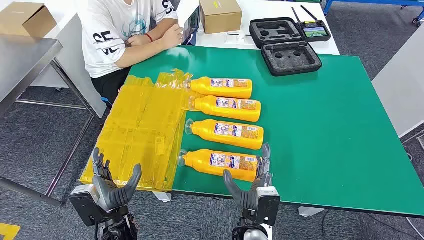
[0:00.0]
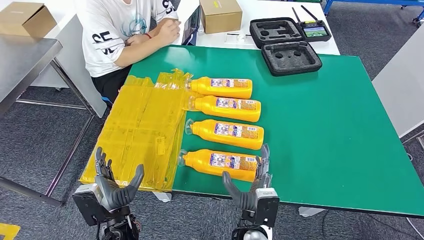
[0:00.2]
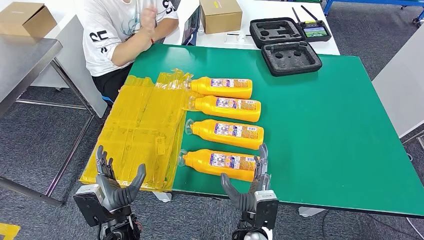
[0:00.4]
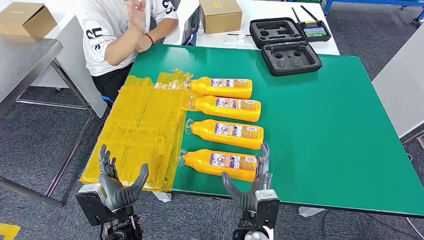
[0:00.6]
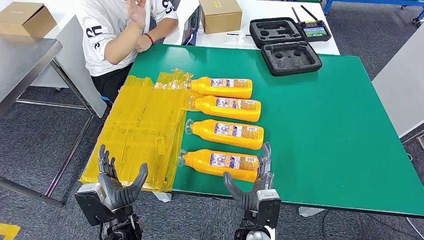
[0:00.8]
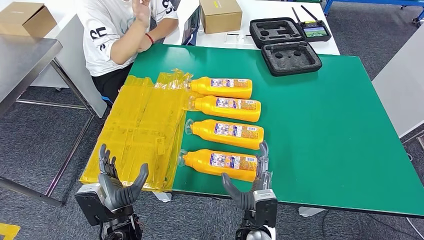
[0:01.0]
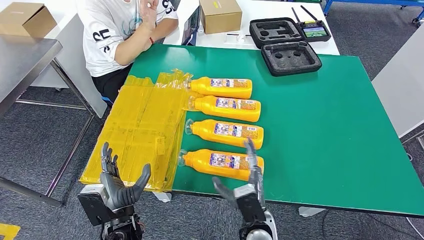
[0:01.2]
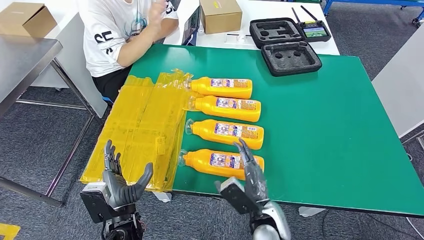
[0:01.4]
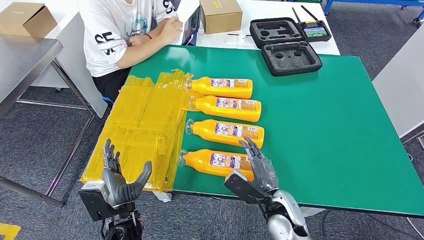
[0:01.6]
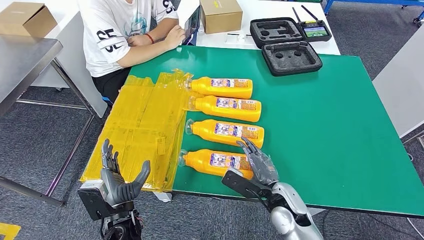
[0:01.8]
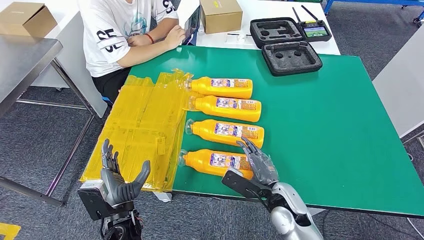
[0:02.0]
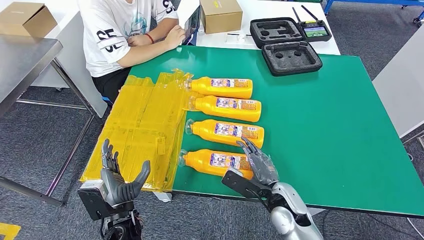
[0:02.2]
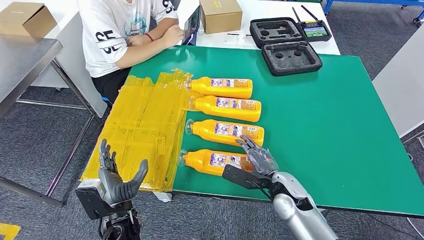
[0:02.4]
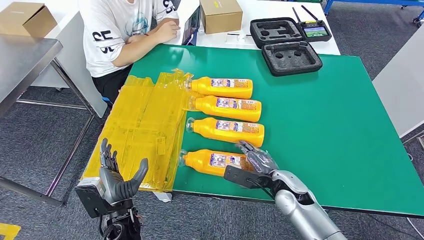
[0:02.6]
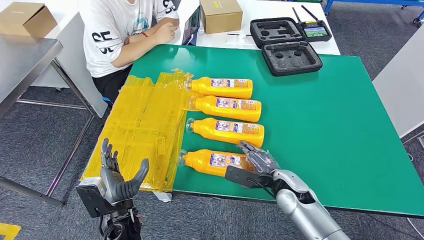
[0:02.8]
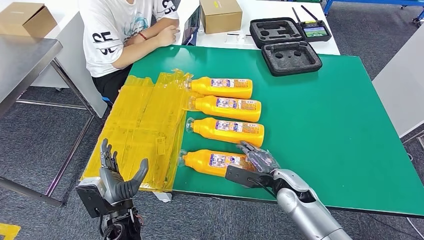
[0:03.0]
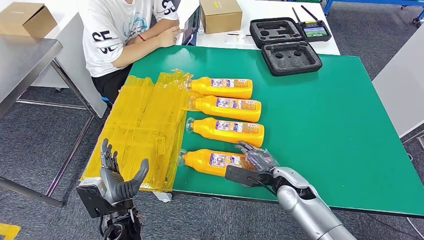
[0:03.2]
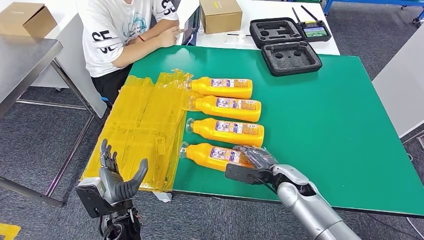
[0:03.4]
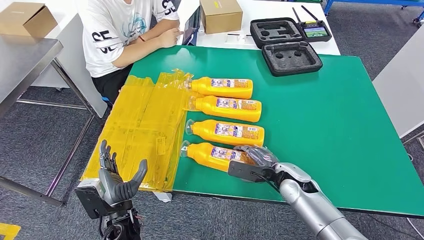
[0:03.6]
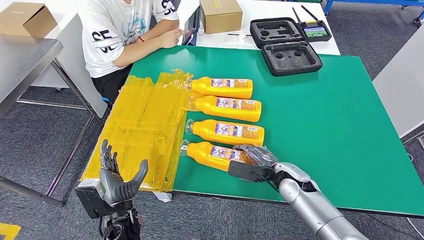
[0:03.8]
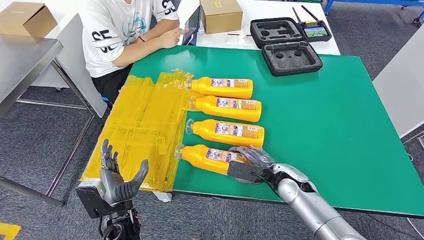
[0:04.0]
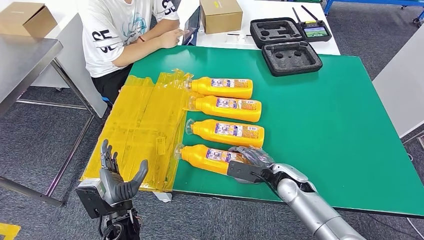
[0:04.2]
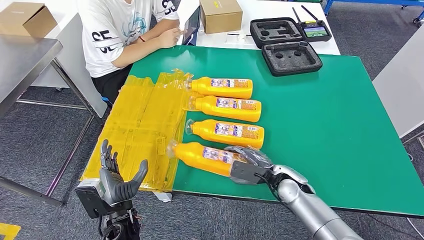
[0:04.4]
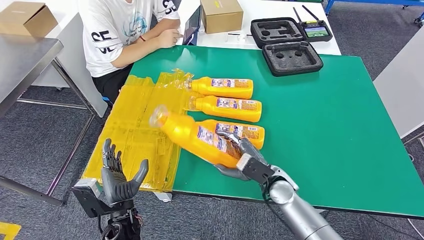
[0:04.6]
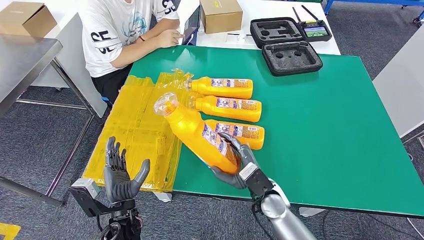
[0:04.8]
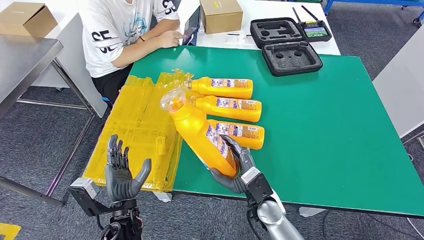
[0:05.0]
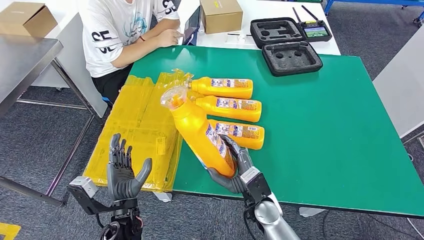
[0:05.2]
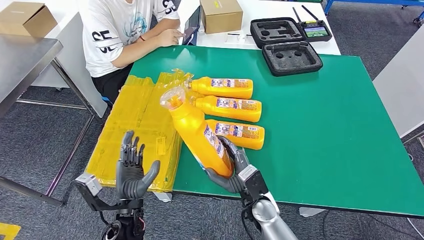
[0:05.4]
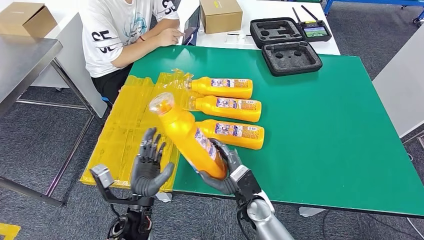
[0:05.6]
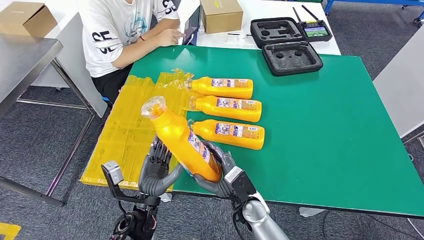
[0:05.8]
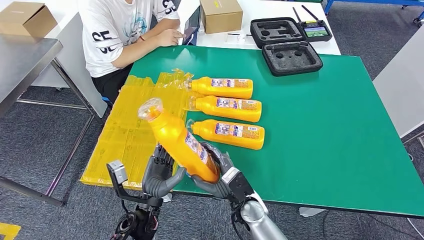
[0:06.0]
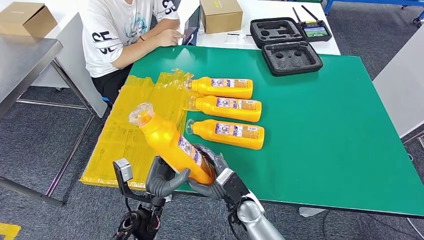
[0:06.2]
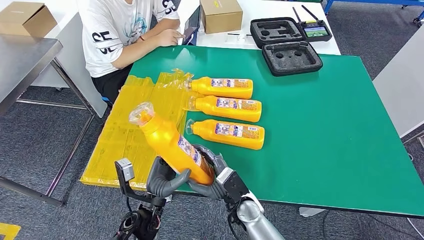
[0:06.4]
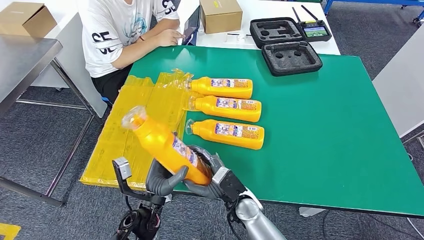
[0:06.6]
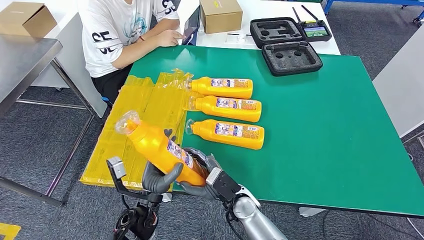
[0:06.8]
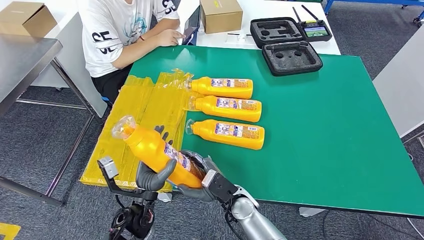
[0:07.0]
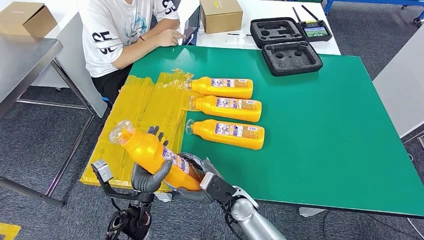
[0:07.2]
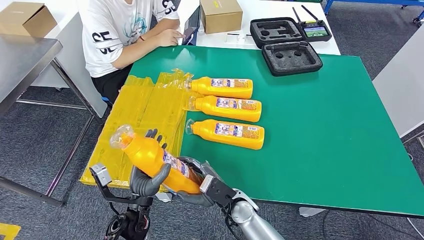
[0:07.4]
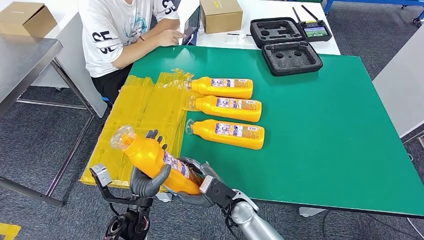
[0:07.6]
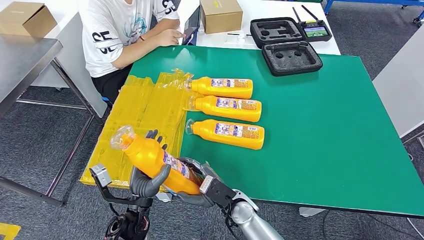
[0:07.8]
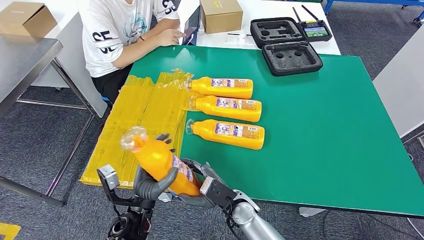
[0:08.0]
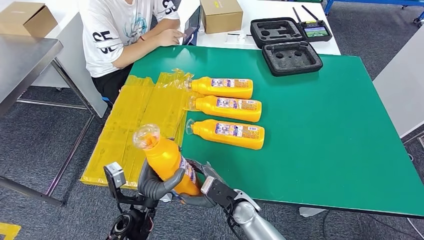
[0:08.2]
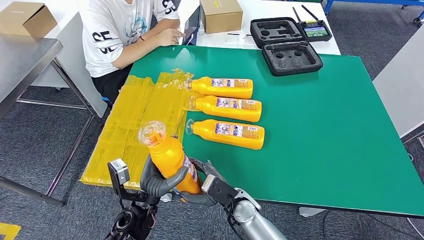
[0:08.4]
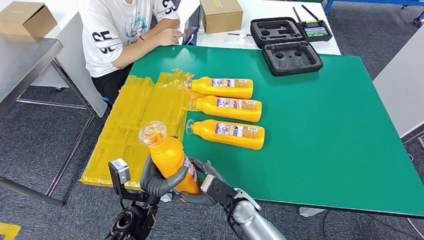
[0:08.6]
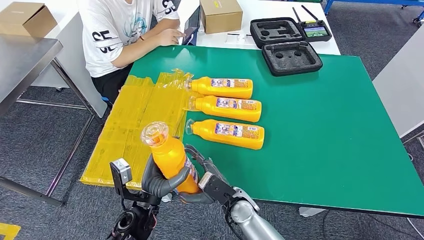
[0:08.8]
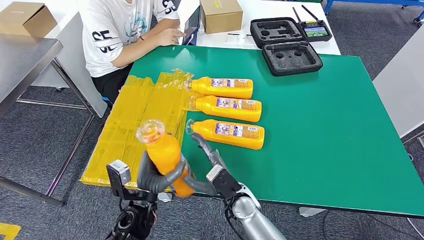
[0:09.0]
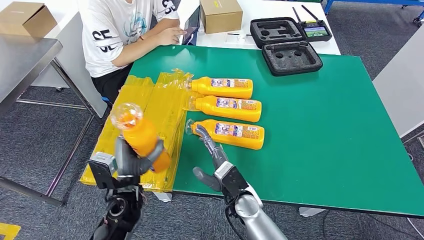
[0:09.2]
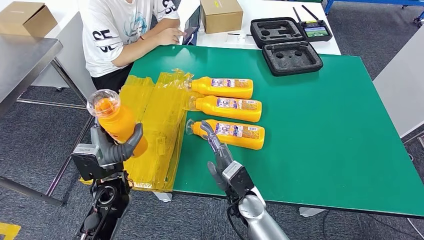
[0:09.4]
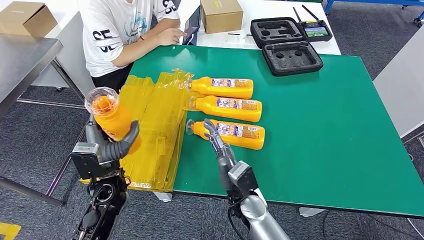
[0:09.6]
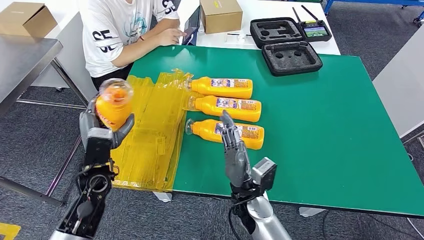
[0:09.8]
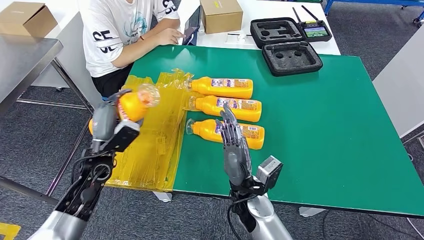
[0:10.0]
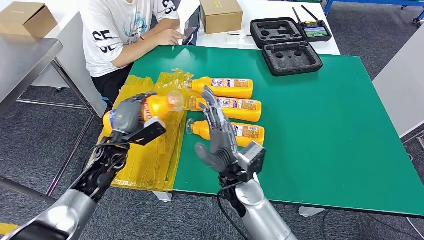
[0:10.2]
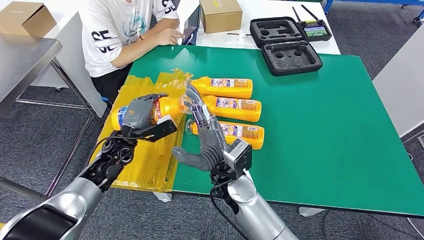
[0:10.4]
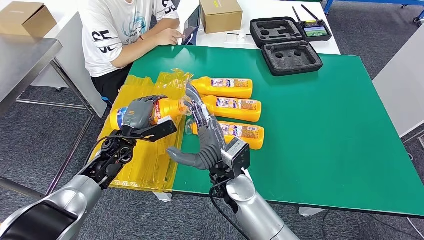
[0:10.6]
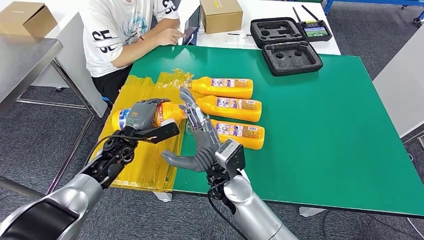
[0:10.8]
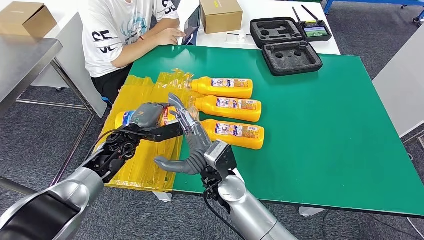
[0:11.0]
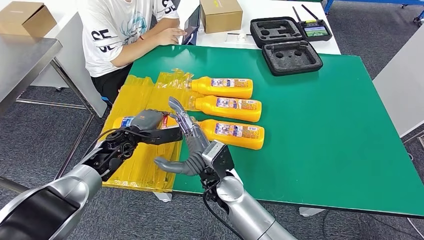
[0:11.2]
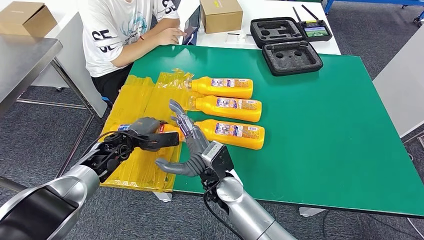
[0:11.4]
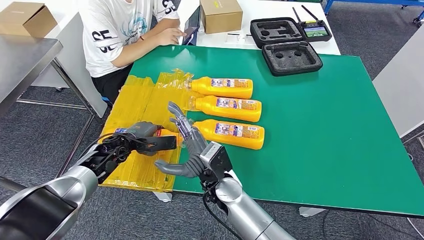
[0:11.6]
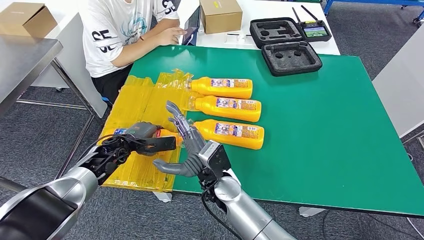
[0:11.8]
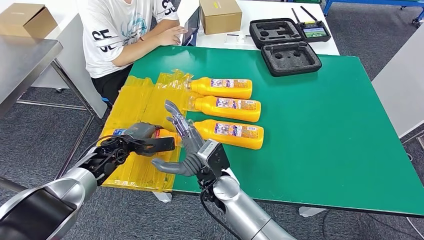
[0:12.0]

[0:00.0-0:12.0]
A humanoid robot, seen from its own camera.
Step, 0:00.0 to 0:05.4: Take the fast-moving consumer goods bottle from the table.
0:01.6 to 0:03.0: The right hand moves forward, roughly 5 cm.
0:03.0 to 0:04.4: The hands move only a little.
0:04.4 to 0:06.0: The right hand is displaced to the left and backward by approximately 15 cm. Meanwhile the left hand ends up some 5 cm from where it was.
0:06.0 to 0:09.0: The hands move only a little.
0:09.0 to 0:10.4: The right hand heads upward, covering about 10 cm, while the left hand goes roughly 20 cm forward and to the left.

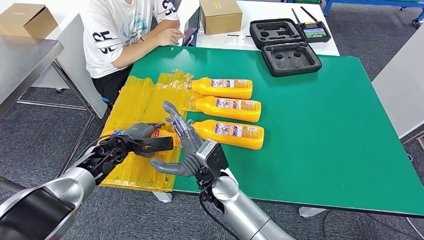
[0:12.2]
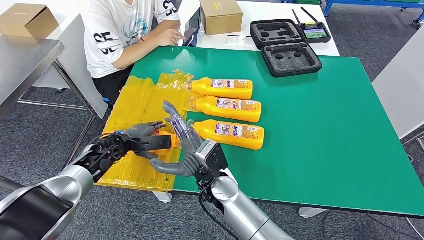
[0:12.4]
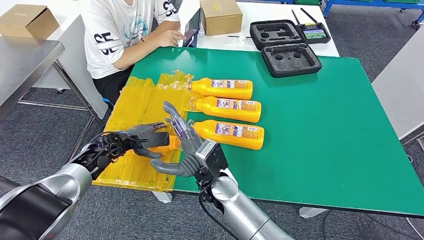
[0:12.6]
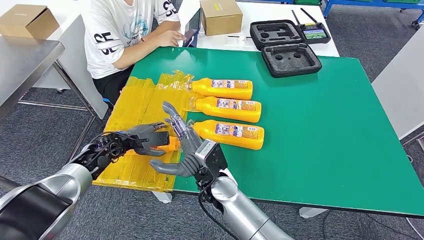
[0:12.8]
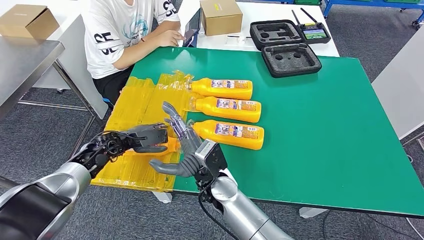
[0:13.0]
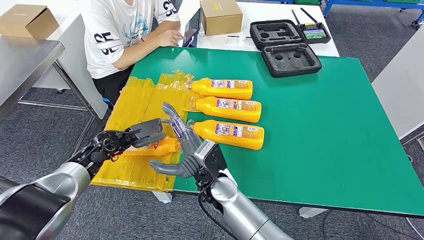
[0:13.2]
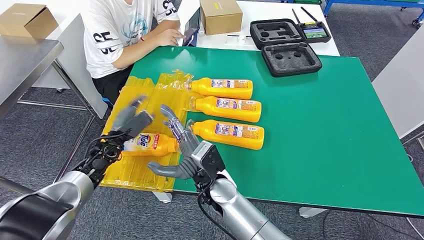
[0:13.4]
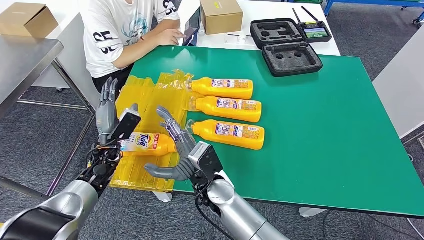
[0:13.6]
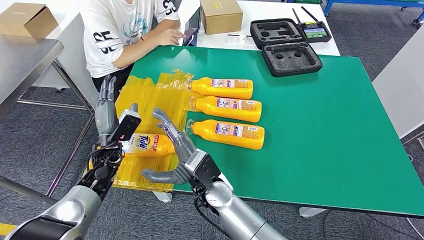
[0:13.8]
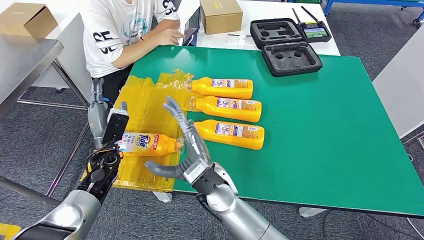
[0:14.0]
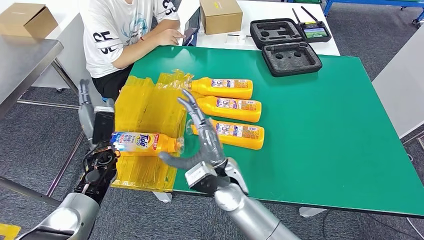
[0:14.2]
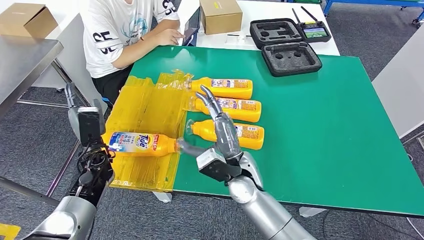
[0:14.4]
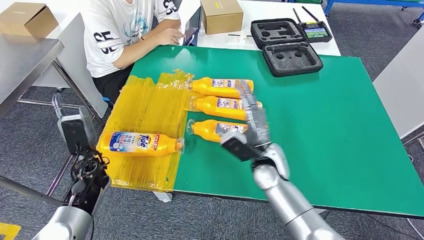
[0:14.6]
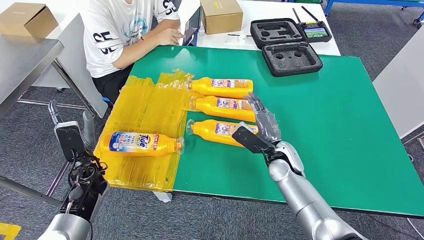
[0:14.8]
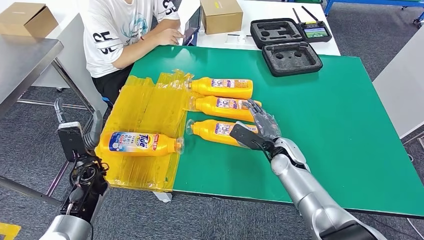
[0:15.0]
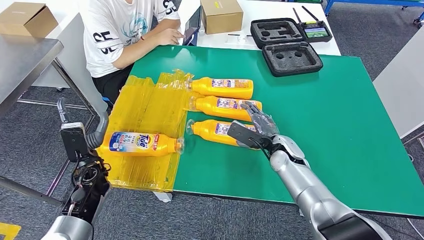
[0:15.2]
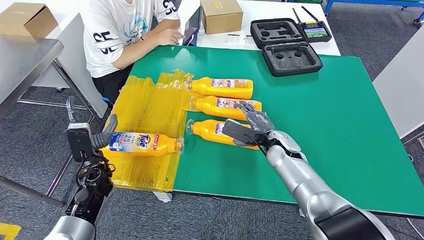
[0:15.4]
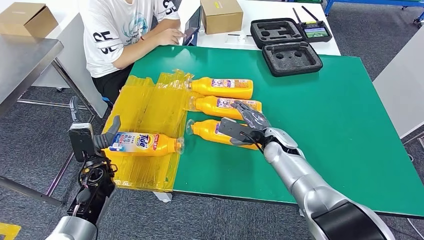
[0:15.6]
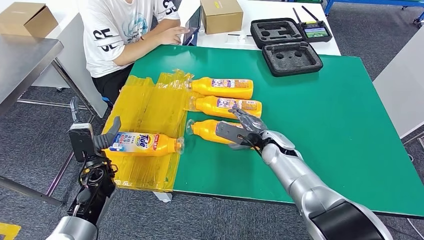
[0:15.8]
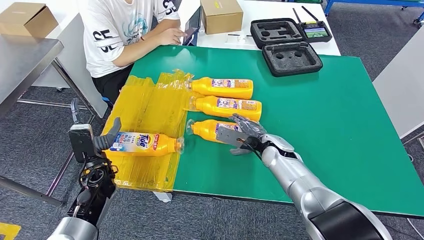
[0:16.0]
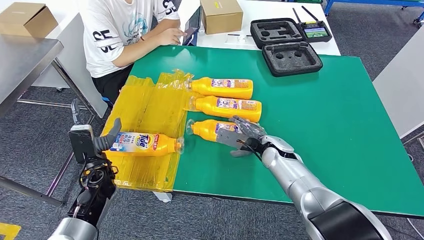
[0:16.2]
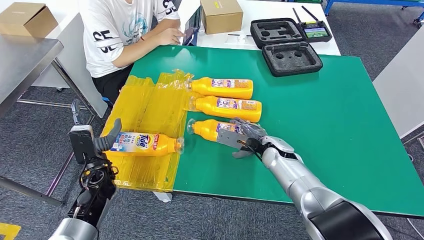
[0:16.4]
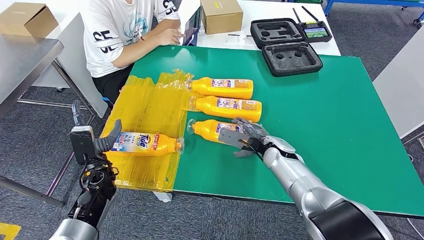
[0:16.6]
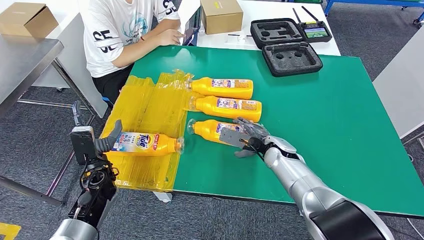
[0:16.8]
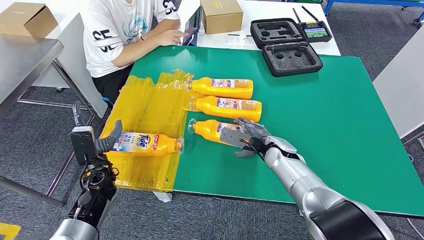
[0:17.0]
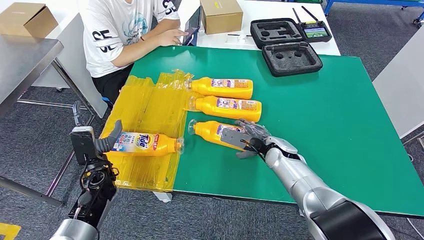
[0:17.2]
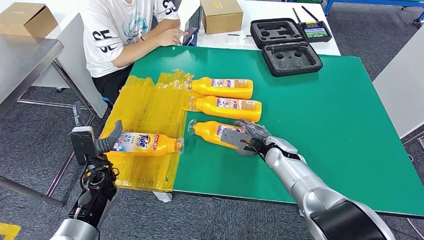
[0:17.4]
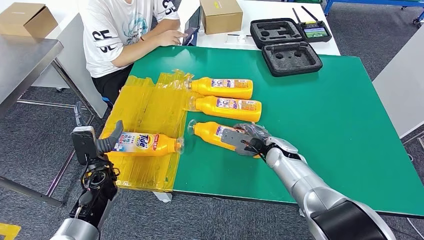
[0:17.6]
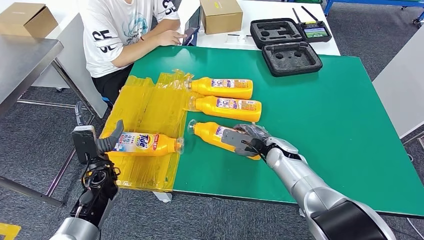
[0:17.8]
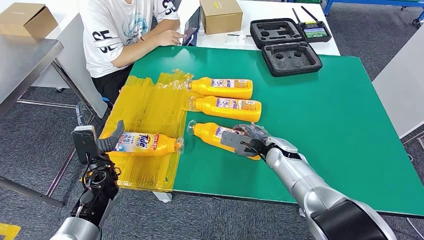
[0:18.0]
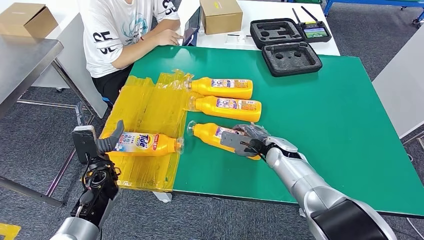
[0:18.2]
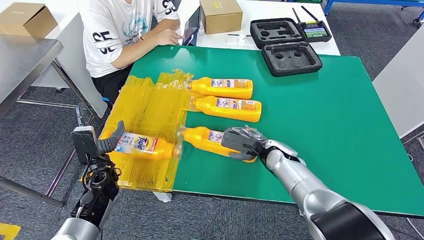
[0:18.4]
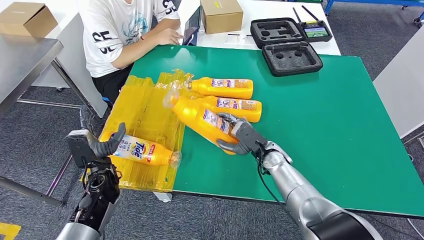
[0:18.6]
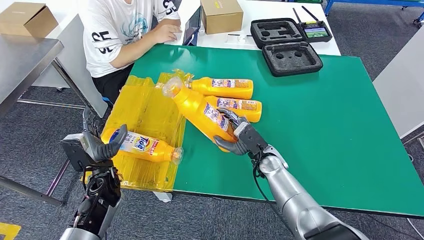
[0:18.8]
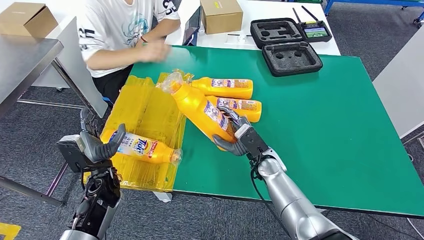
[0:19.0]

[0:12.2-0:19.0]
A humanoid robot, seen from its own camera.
Step, 0:13.8 to 0:19.0: Pick up the fast-moving consumer goods bottle from the table.
0:13.6 to 0:15.0: The left hand travels backward by approximately 5 cm; the right hand heads to the right and forward, covering about 25 cm.
0:16.2 to 0:17.6: The hands stay close to where they were, moving slightly.
0:17.6 to 0:19.0: The right hand ends up about 5 cm from where it was.
